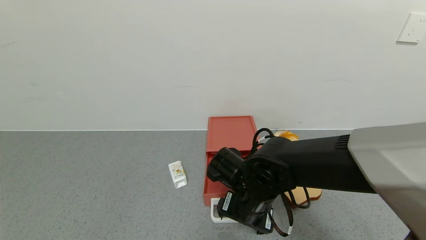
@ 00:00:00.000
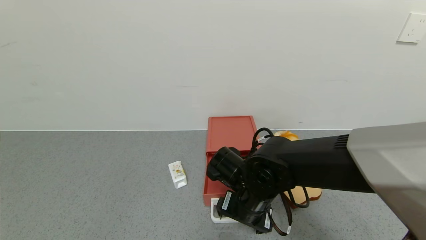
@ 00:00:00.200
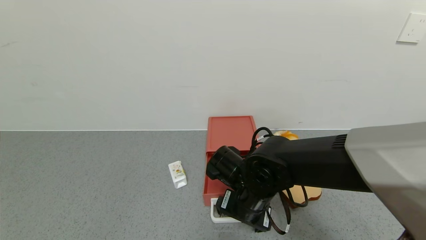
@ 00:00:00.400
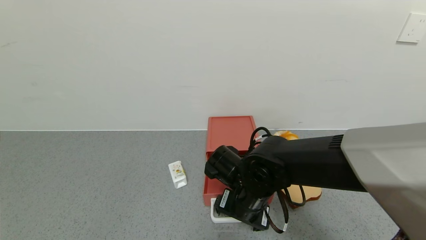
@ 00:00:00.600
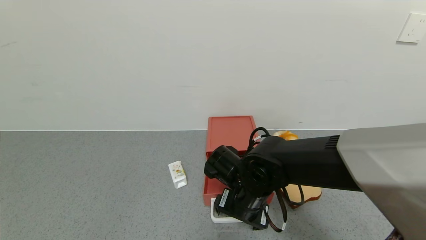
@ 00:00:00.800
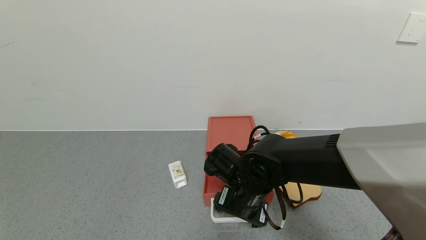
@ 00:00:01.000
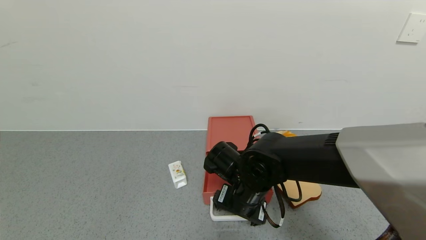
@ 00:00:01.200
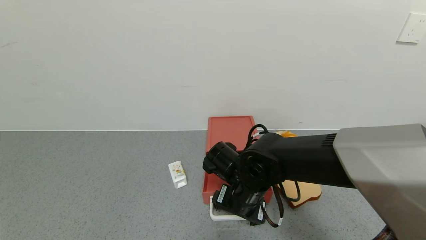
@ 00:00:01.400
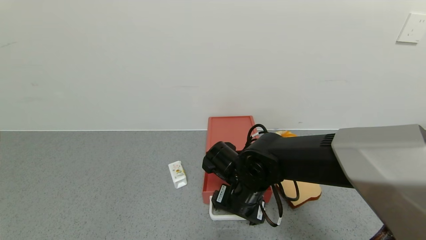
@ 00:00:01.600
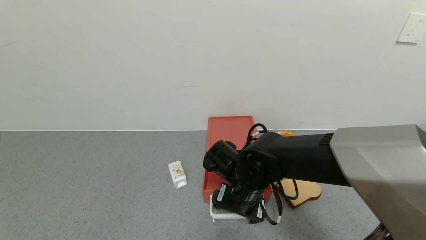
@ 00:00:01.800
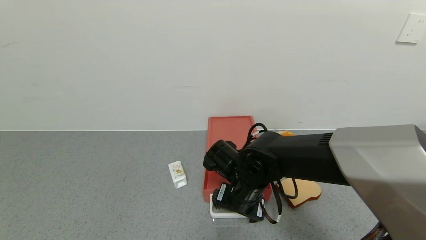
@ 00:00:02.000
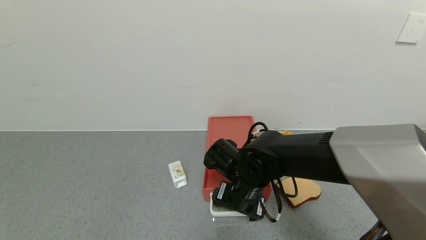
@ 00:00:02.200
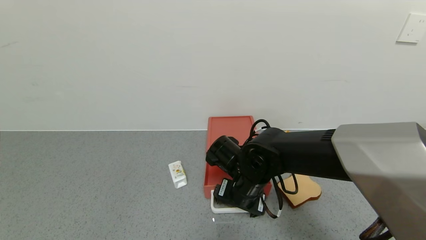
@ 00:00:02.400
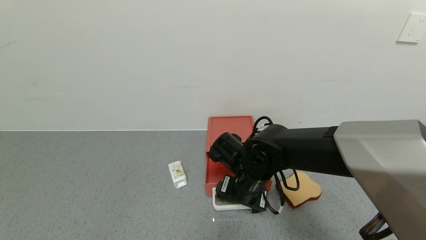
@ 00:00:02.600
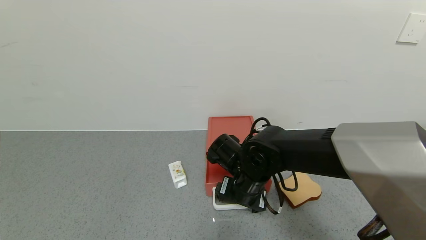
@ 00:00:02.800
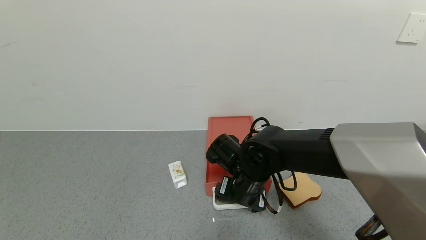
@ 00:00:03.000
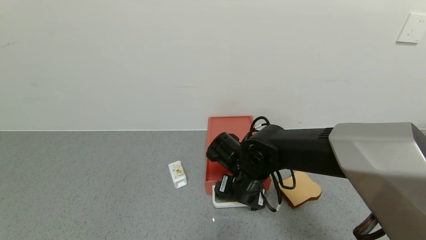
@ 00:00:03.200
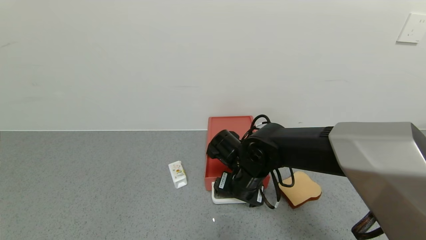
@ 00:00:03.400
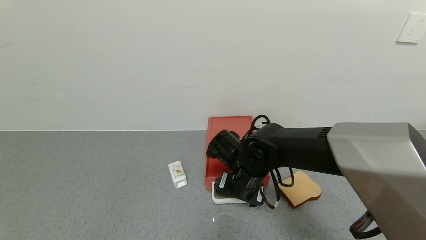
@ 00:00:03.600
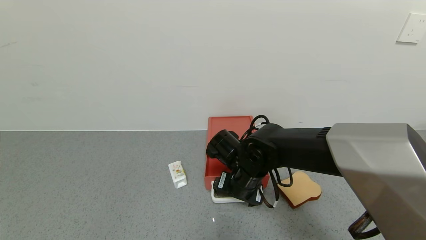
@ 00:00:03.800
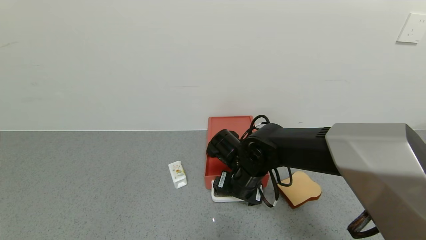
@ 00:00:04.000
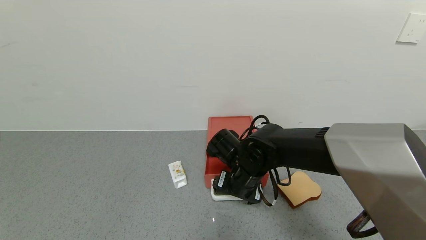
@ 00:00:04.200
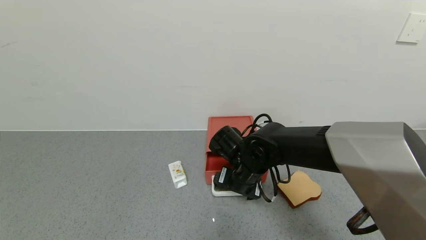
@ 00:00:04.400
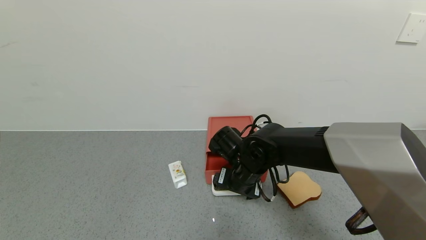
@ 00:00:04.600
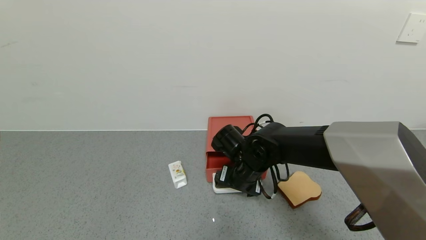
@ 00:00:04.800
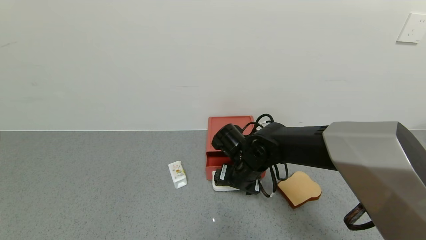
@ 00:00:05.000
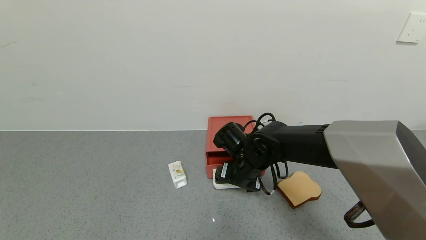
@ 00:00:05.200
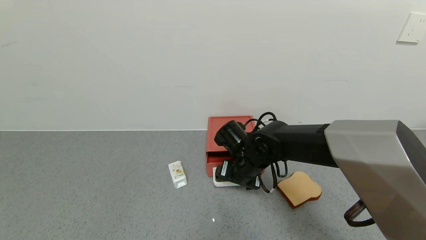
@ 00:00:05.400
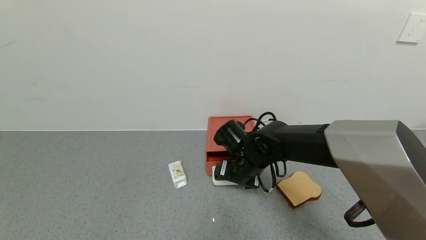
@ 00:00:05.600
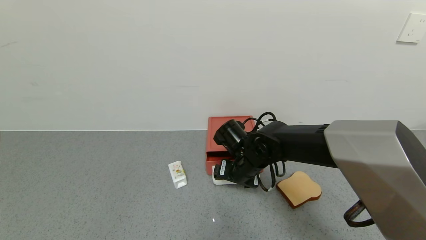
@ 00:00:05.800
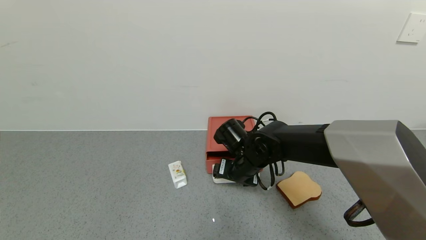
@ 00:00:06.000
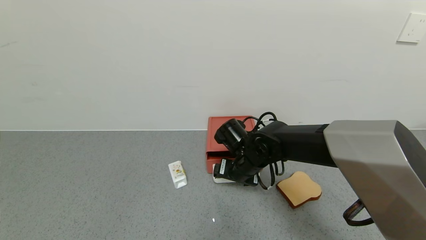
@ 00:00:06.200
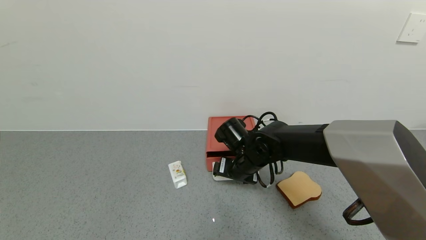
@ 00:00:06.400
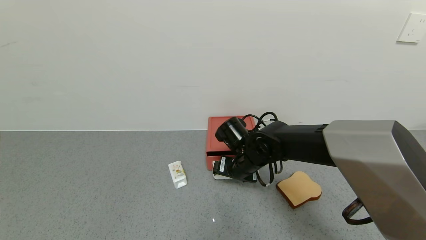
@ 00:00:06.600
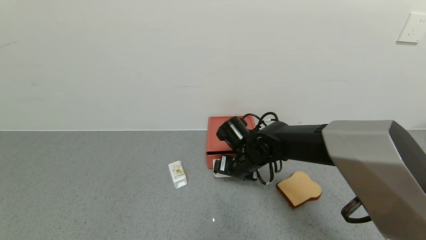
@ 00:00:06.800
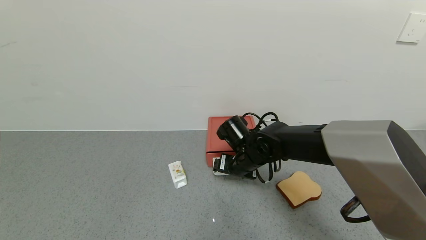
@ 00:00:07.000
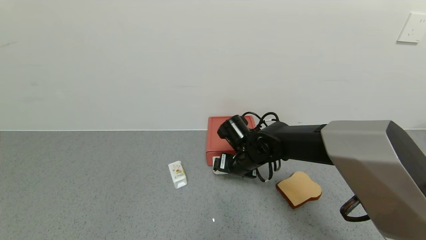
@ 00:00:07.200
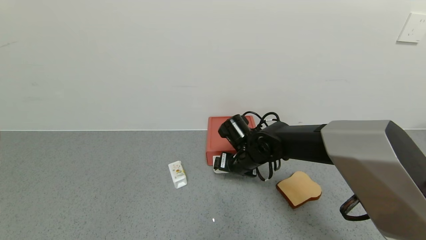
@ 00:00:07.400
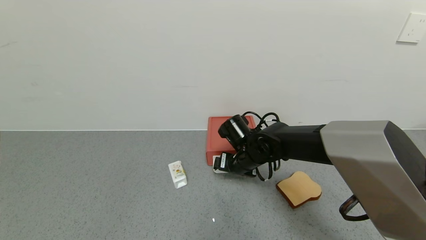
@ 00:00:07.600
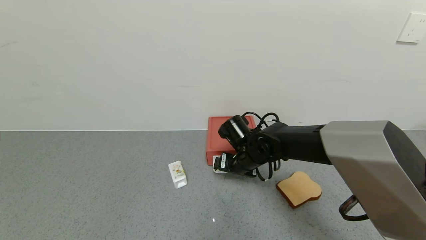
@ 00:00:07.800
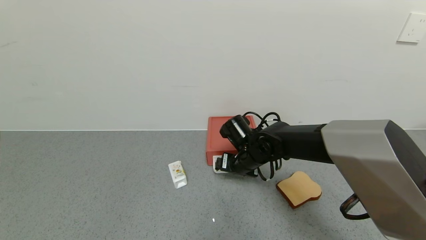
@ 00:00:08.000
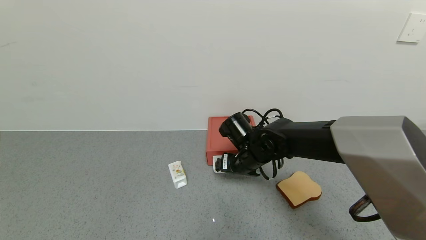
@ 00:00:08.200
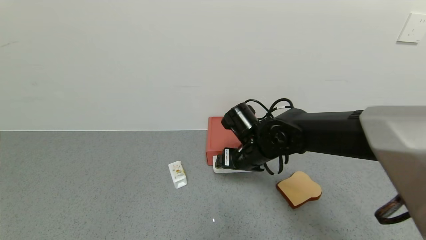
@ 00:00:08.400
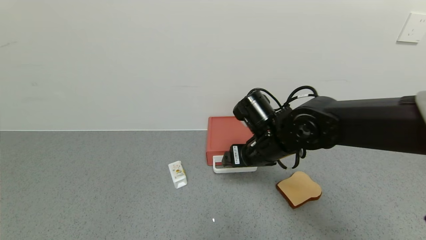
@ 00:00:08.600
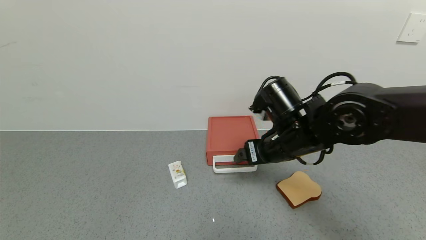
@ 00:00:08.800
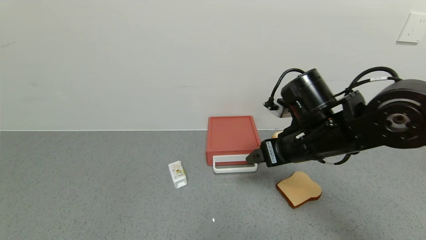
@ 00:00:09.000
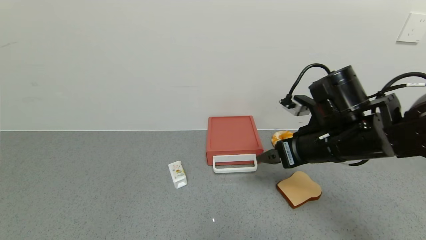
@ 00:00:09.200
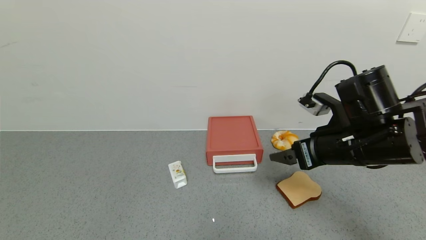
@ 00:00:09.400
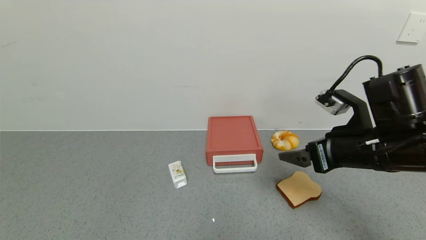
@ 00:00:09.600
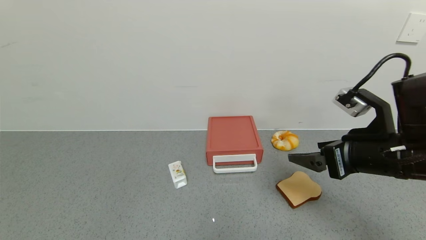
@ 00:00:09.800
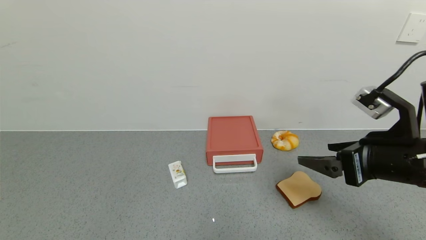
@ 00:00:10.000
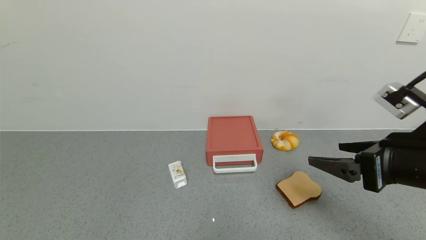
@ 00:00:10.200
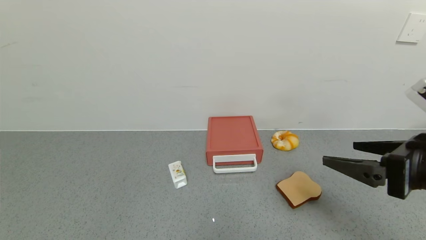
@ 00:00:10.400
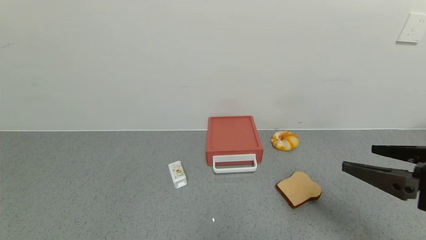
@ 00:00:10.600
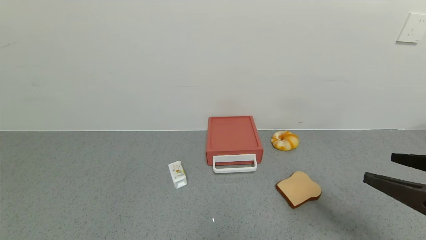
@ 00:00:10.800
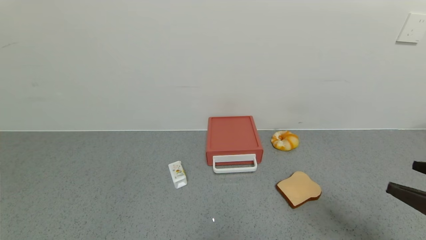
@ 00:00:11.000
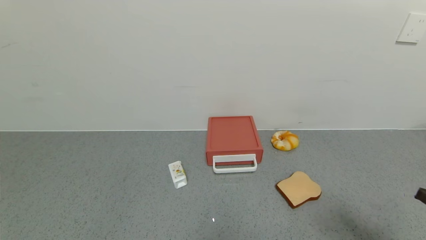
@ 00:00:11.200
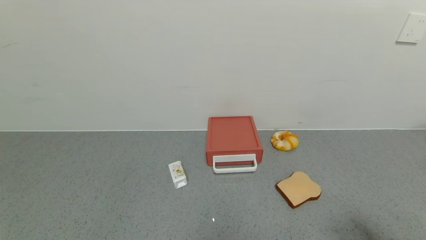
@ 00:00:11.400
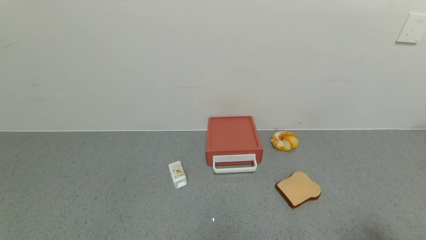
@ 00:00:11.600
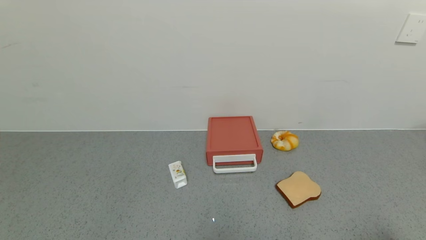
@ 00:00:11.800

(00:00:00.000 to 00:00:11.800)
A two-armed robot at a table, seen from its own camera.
Task of the whole recording: use the gripper to open the drawer and close the red drawer.
Step, 00:00:00.000 - 00:00:08.600: Close the red drawer with the right gripper.
00:00:00.000 - 00:00:04.400: The grippers make only small movements.
00:00:04.400 - 00:00:07.400: There are only small adjustments of the grippers.
00:00:07.400 - 00:00:08.800: The right gripper shifts roughly 15 cm upward, backward and to the right.
00:00:08.800 - 00:00:10.400: The right gripper moves to the right and backward, some 20 cm.
00:00:10.400 - 00:00:11.800: The right gripper goes some 20 cm backward and to the right.
